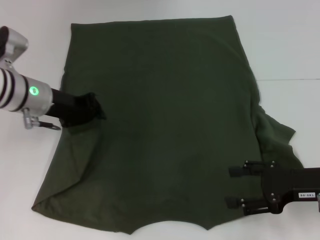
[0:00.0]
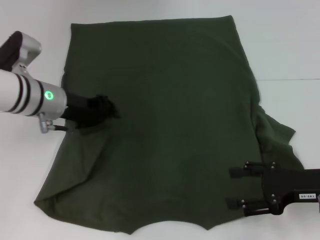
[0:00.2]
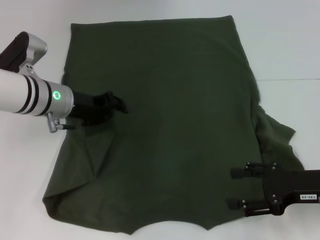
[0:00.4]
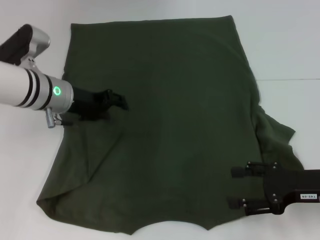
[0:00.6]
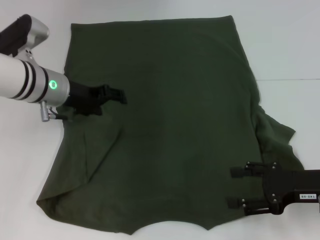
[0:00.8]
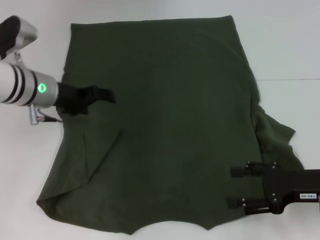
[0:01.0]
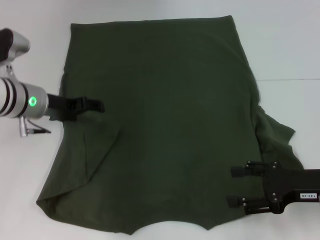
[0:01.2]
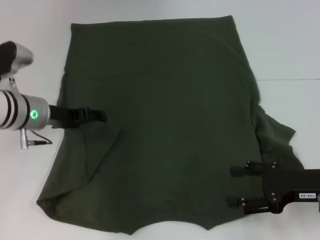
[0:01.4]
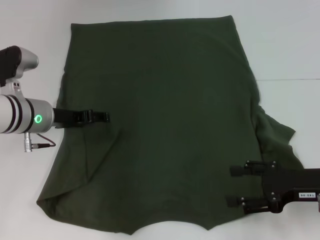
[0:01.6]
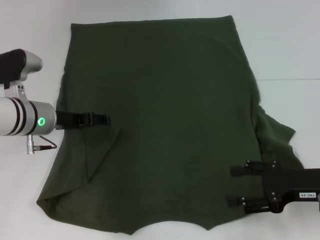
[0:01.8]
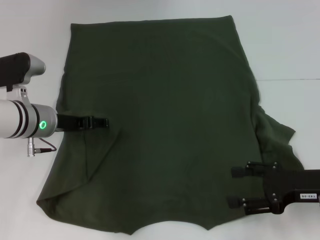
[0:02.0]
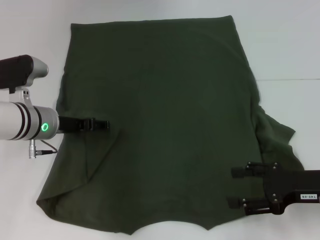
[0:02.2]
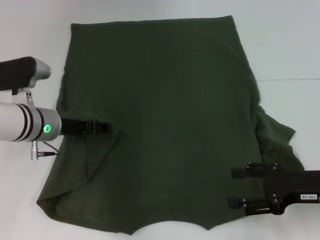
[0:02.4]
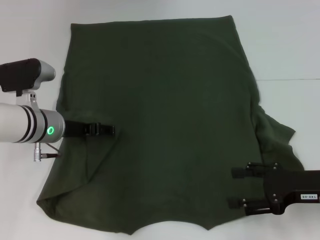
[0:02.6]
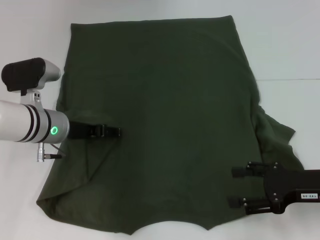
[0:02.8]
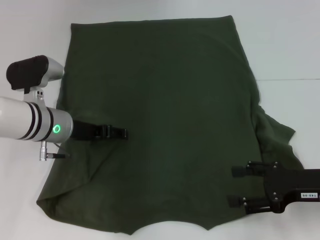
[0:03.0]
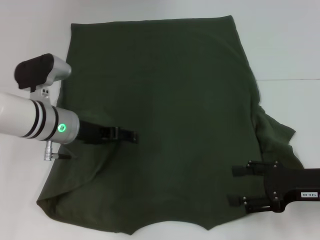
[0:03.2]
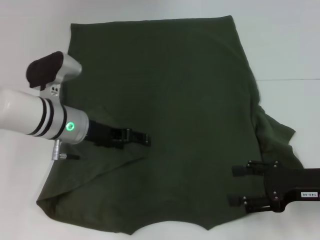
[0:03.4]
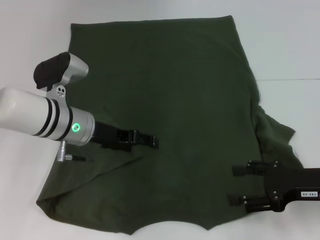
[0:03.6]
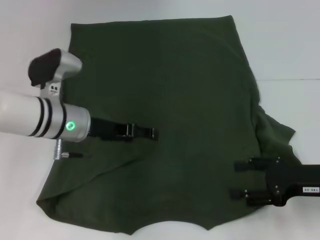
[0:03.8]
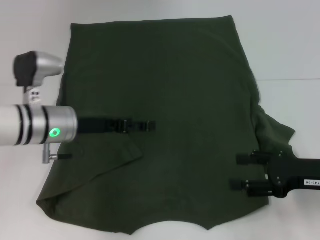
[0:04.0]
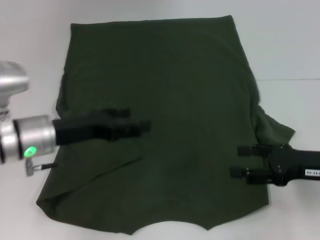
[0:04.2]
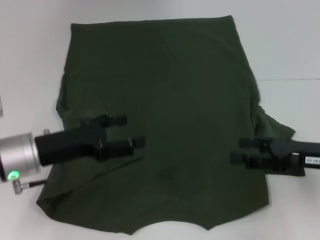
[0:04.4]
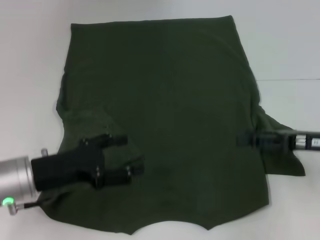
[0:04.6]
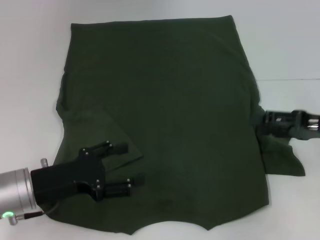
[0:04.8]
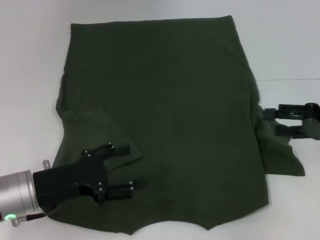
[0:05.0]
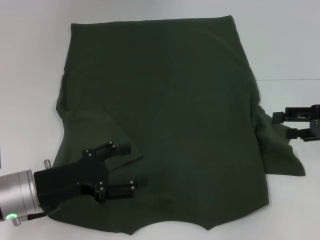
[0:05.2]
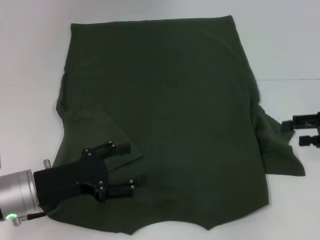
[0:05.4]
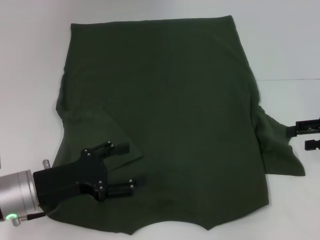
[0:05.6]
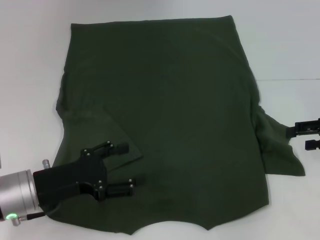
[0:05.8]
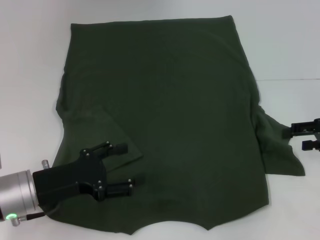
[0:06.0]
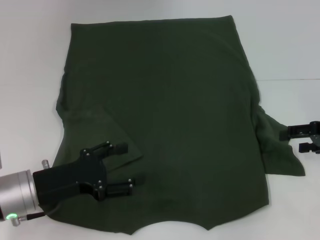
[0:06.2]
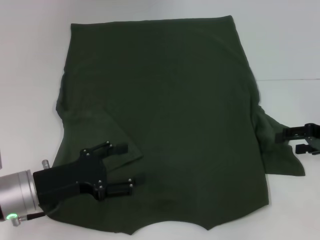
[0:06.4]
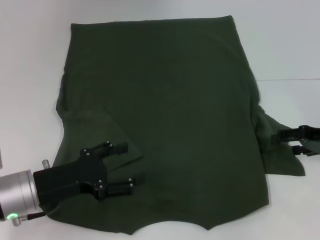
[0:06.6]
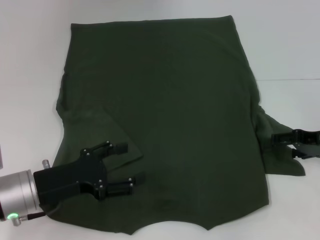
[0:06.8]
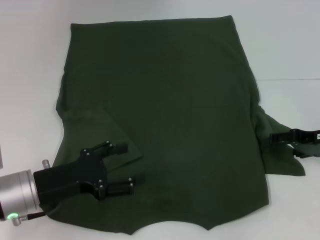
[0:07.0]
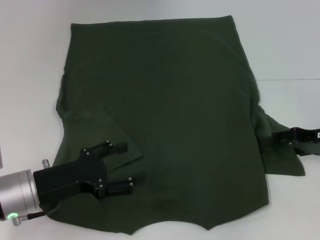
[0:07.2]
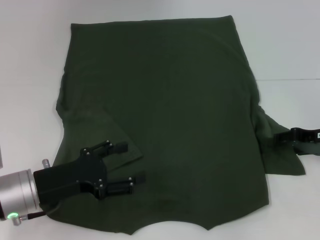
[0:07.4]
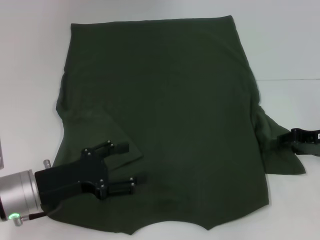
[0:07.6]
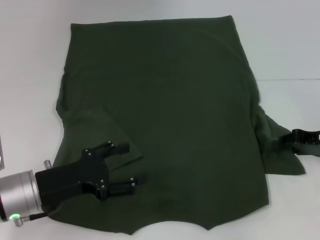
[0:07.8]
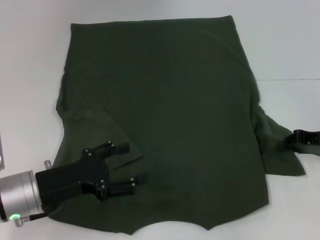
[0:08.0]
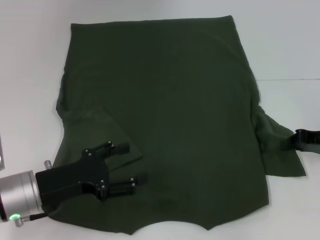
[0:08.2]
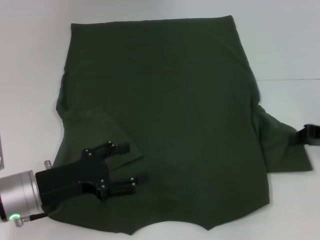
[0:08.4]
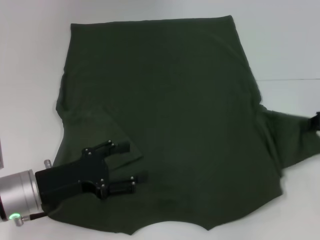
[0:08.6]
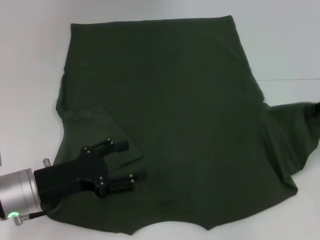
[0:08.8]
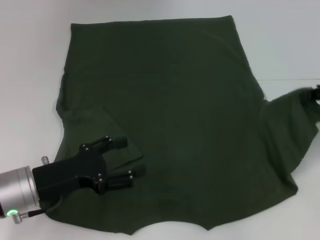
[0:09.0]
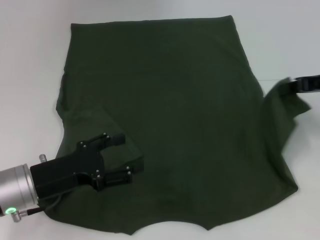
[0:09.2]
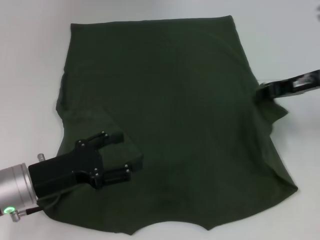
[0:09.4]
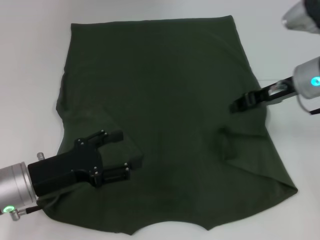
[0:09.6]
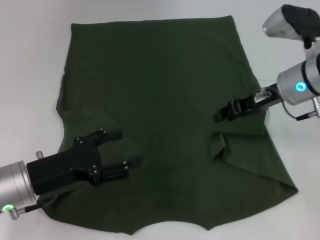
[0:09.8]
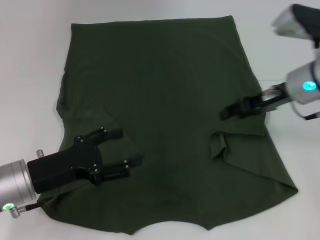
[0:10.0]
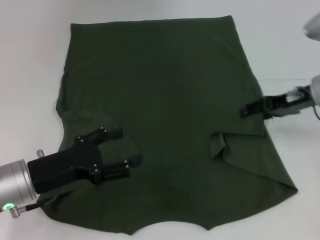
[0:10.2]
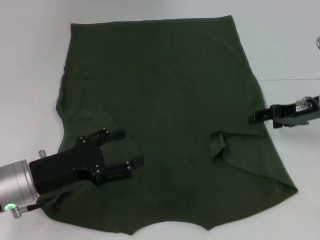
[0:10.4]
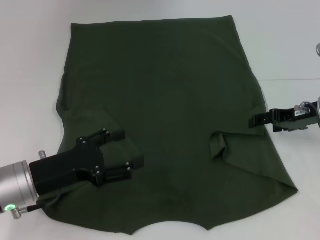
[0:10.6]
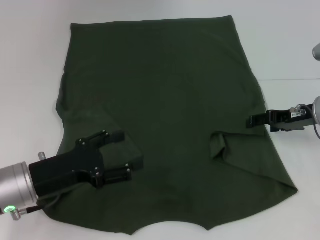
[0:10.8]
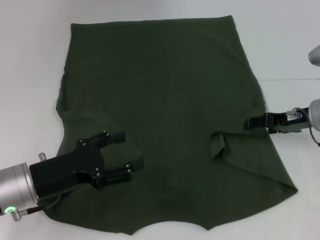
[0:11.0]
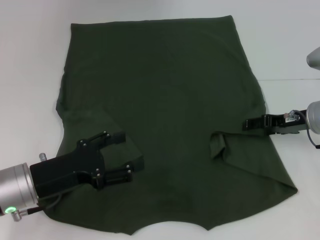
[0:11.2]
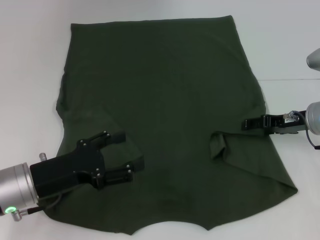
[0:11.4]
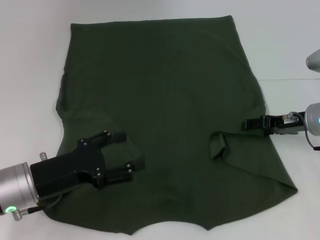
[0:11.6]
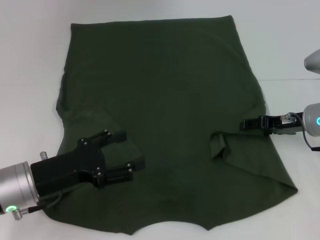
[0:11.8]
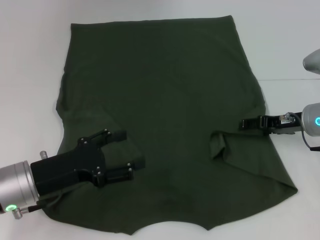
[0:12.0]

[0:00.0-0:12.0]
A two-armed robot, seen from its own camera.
Step, 0:00.6 to 0:11.4: Fold the bottom right sleeve with your right hand.
0:00.0 to 0:01.6: The left gripper opens up.
0:01.6 to 0:03.0: The grippers stay close to where they were, moving slightly.
0:03.0 to 0:04.4: The left gripper travels backward by roughly 10 cm.
0:04.4 to 0:06.0: The left gripper changes place by about 5 cm; the right gripper goes approximately 10 cm to the right and forward.
0:06.0 to 0:07.6: The grippers make only small movements.
0:07.6 to 0:09.0: The right gripper is displaced upward by about 5 cm, and closes up.
0:09.0 to 0:10.4: The right gripper travels to the left by roughly 5 cm, and opens.
0:10.4 to 0:12.0: There are only small adjustments of the grippers.

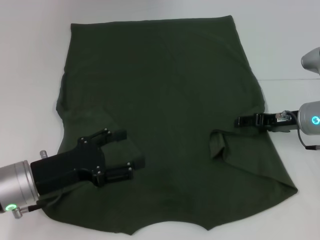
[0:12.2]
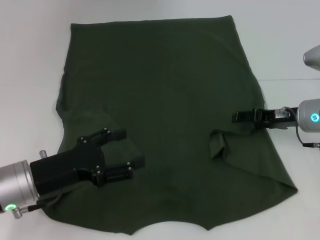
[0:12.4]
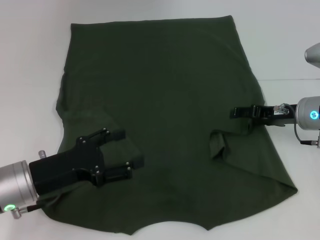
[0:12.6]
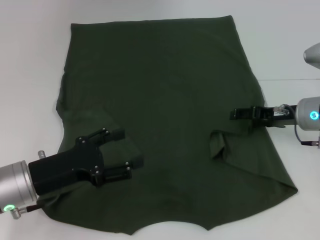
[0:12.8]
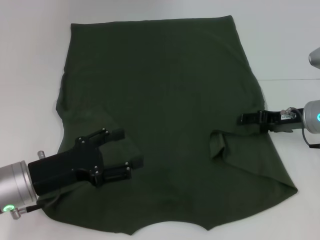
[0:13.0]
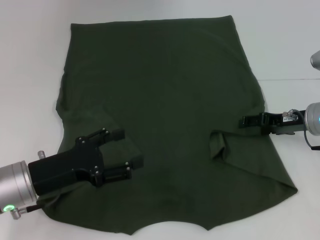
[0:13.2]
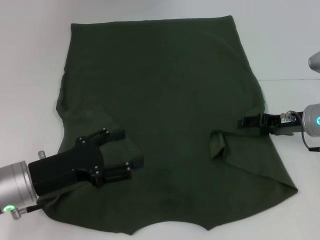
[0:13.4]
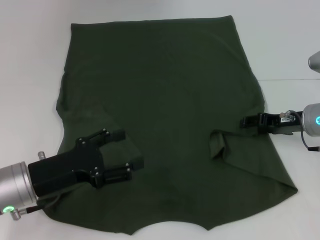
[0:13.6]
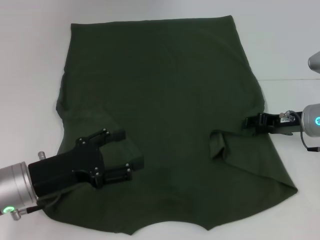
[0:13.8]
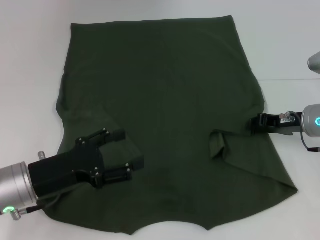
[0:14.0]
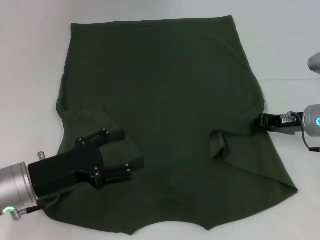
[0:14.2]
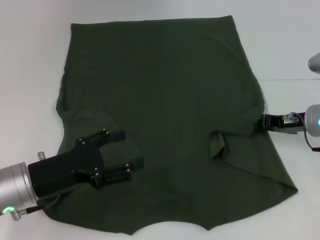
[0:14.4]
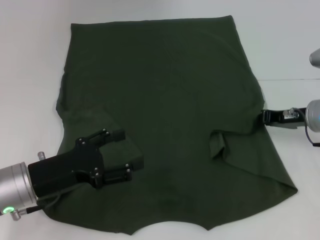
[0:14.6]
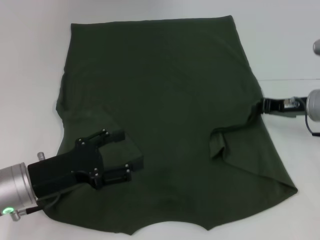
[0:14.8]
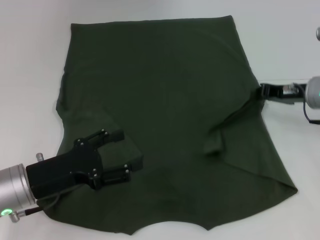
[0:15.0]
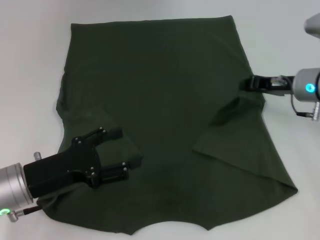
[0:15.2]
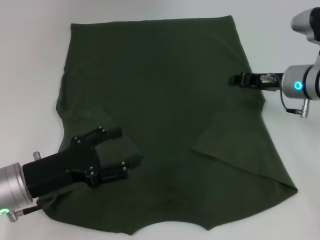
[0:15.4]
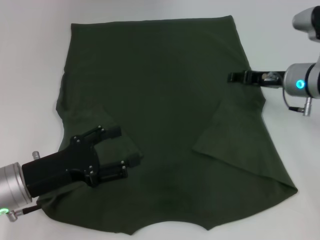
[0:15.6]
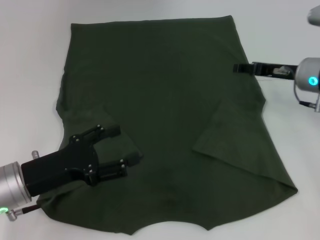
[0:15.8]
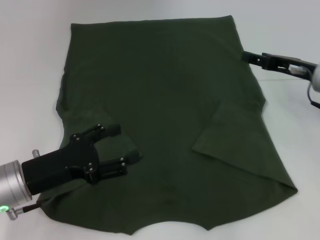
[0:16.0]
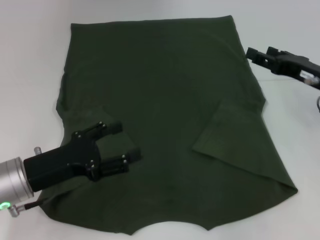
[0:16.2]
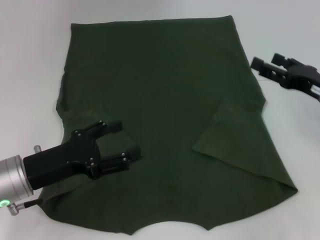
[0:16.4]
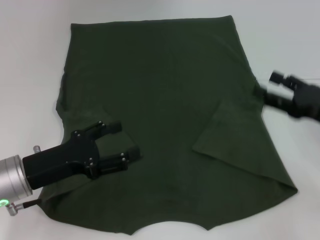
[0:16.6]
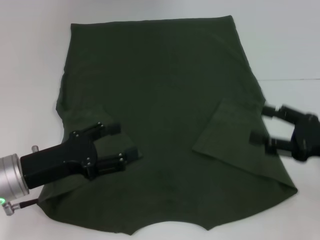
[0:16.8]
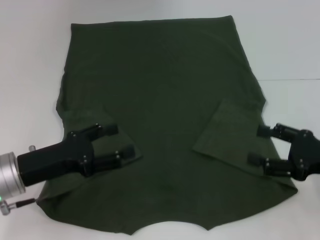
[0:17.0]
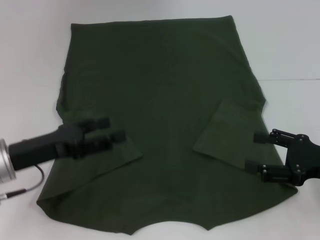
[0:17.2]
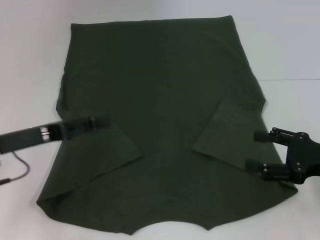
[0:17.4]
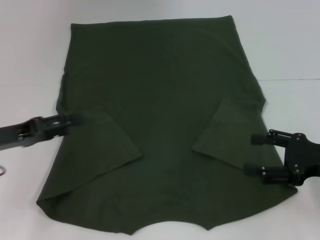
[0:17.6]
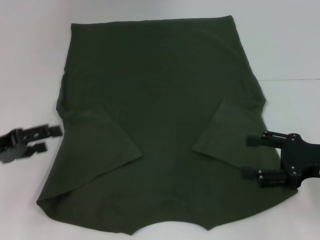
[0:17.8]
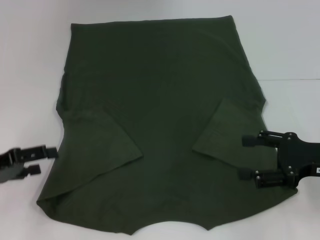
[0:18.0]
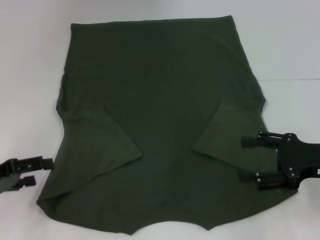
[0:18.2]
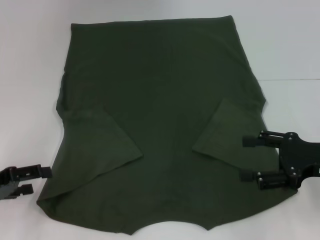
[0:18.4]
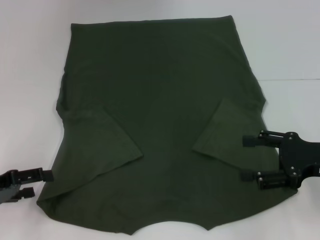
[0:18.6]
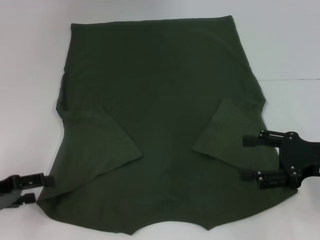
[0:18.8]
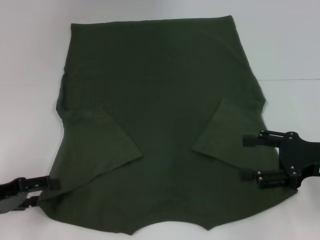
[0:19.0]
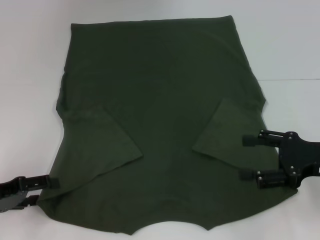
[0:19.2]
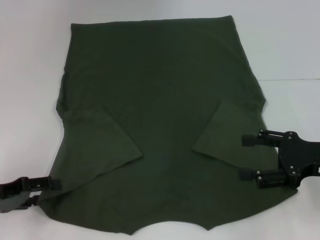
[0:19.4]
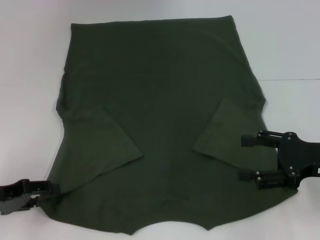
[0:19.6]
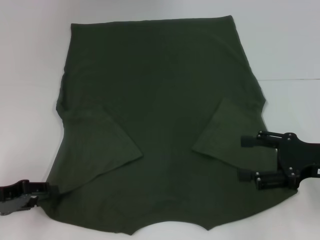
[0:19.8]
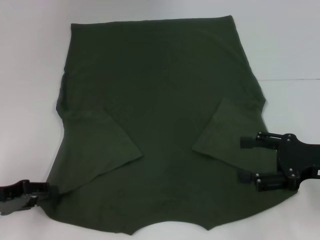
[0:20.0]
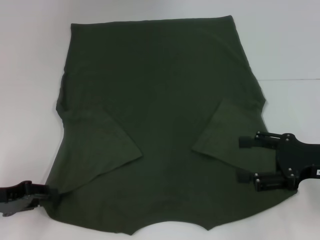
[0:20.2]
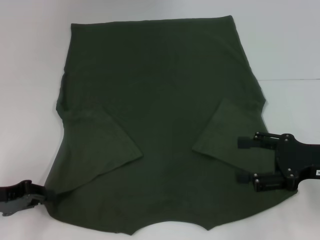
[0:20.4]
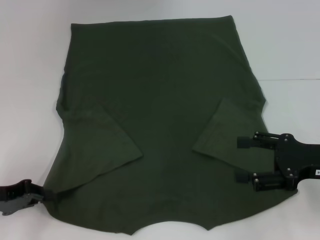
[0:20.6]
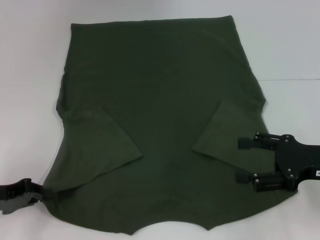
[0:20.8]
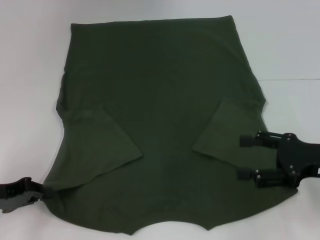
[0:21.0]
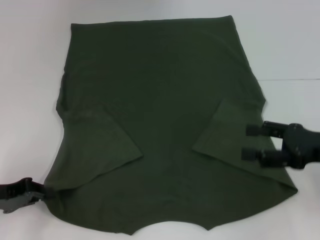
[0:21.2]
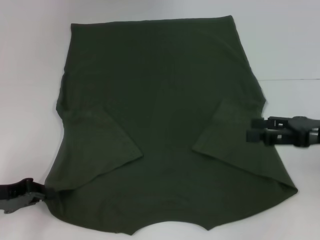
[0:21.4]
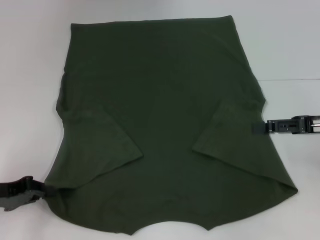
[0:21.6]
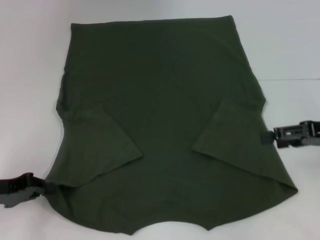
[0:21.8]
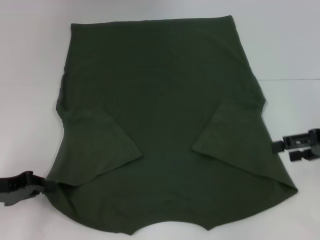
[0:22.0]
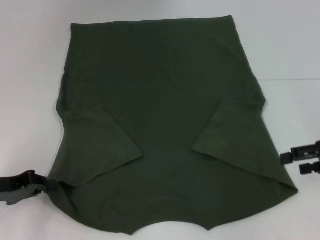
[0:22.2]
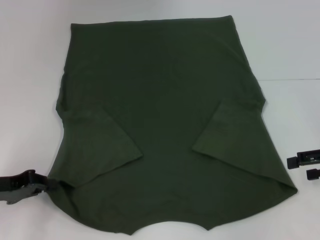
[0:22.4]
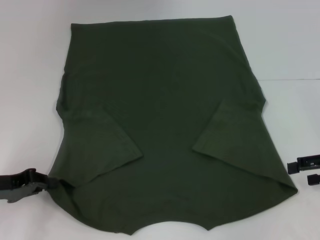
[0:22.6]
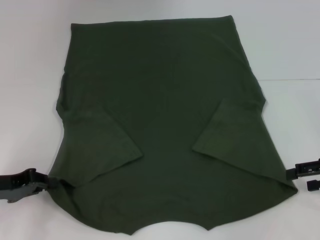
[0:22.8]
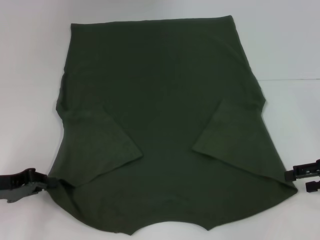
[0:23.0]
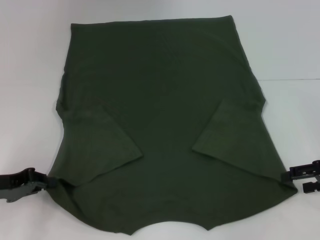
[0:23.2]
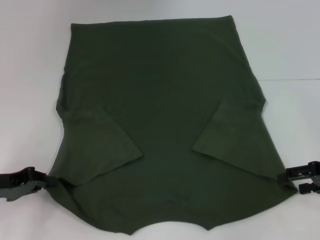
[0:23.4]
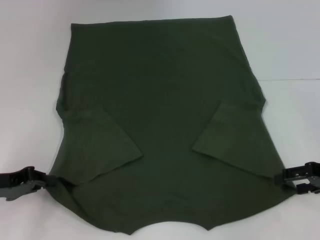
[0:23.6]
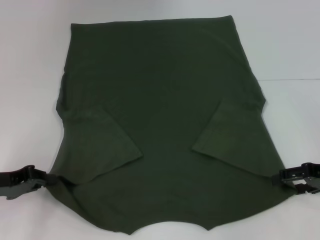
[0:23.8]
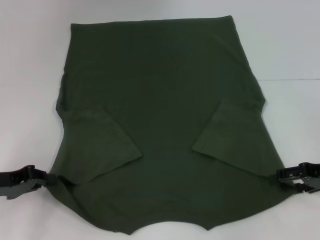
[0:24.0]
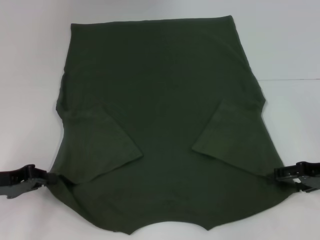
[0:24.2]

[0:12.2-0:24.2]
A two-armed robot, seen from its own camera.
0:12.2 to 0:13.8: Both grippers stay about where they are.
0:13.8 to 0:15.2: The right gripper changes place by approximately 5 cm, and closes.
0:15.2 to 0:16.6: The right gripper is displaced backward and to the right by approximately 15 cm, and opens.
0:16.6 to 0:18.2: The left gripper shifts about 10 cm to the left.
0:18.2 to 0:19.8: There are only small adjustments of the grippers.
0:19.8 to 0:21.2: The left gripper closes up.
0:21.2 to 0:22.6: The right gripper shifts some 5 cm to the right.
0:22.6 to 0:24.2: The grippers stay close to where they were, moving slightly.
